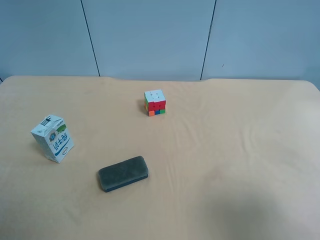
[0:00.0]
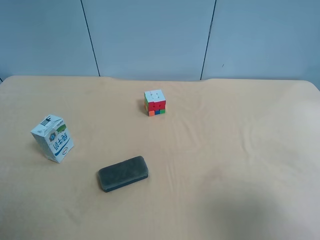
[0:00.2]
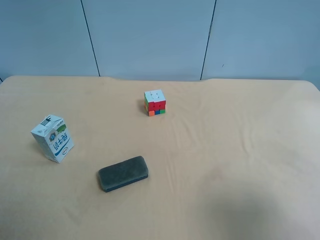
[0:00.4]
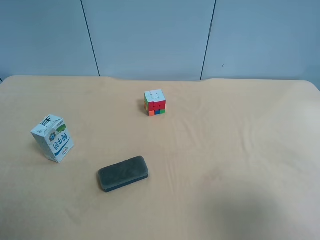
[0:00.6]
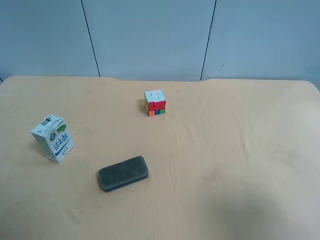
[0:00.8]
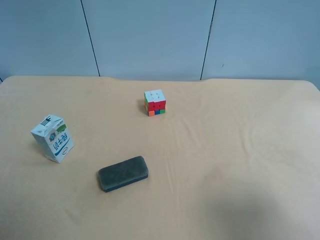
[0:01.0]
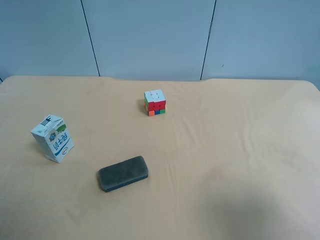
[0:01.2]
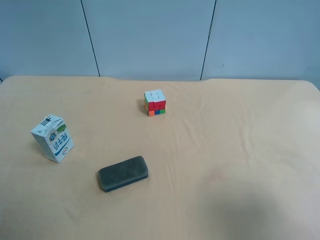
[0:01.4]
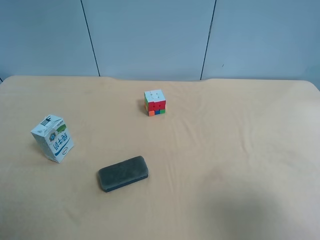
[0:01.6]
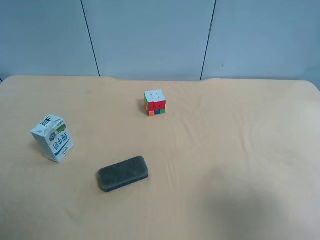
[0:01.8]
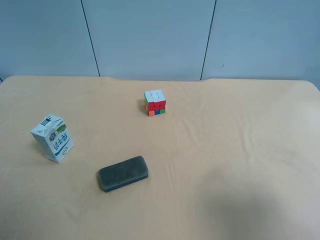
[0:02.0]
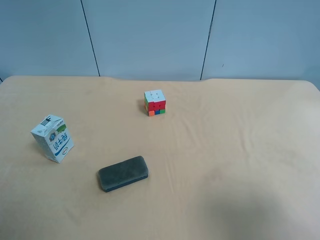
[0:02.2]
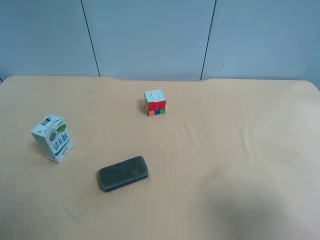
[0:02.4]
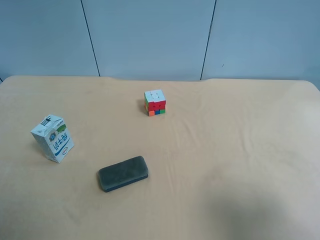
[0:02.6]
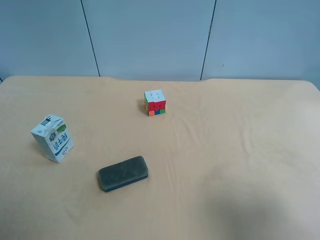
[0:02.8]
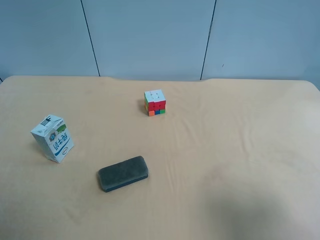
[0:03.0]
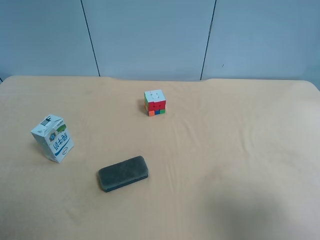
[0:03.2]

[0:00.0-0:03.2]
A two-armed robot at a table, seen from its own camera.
Task of the whole recording: use the right gripper to pick up the item and transfer it from the right gripper to the left gripper.
0:01.6 to 0:03.2: Both grippers stay put.
